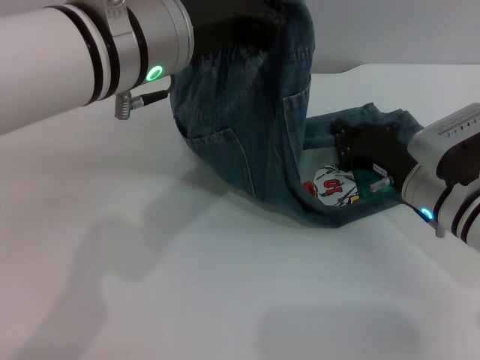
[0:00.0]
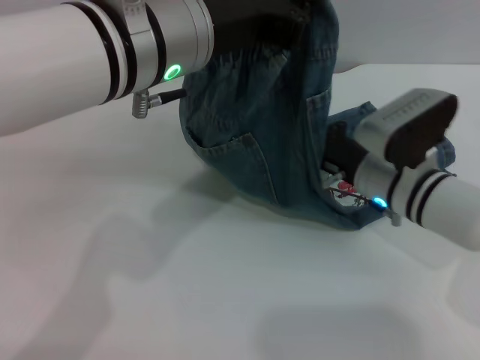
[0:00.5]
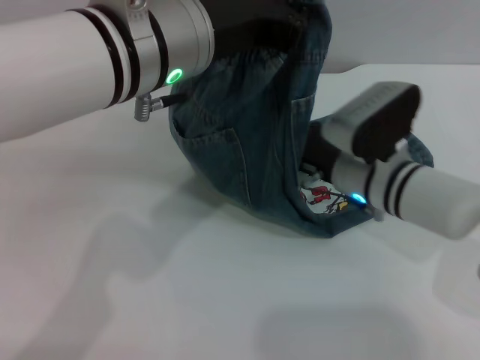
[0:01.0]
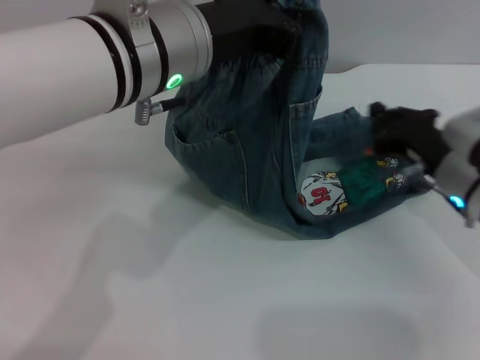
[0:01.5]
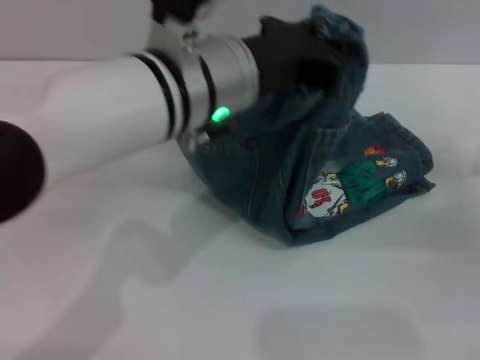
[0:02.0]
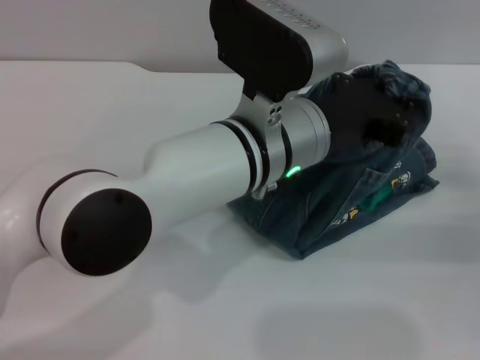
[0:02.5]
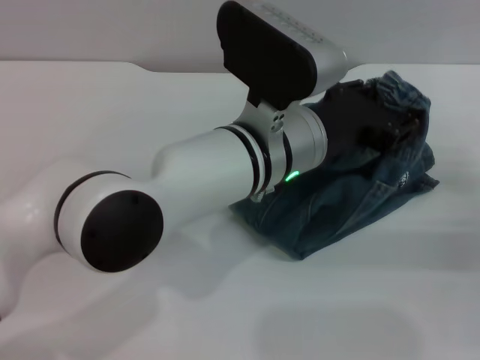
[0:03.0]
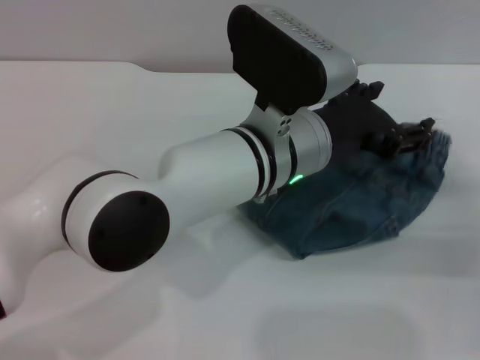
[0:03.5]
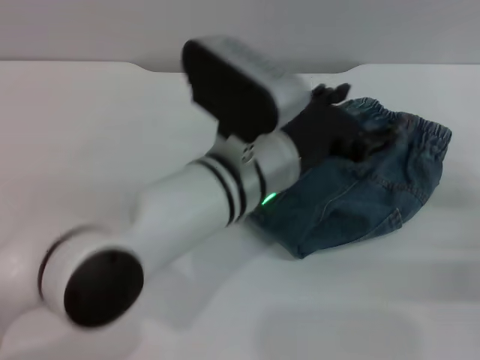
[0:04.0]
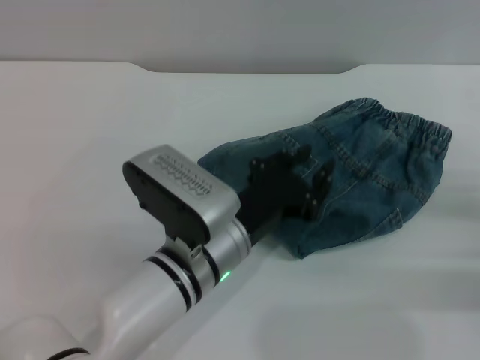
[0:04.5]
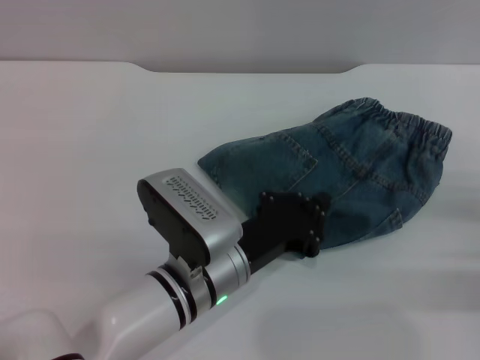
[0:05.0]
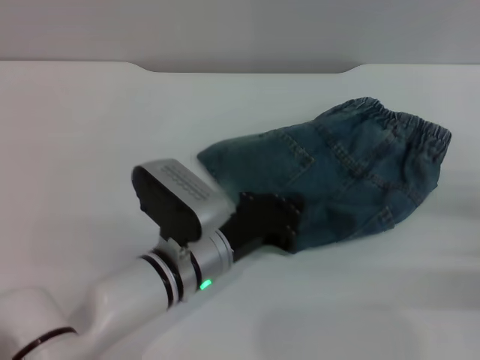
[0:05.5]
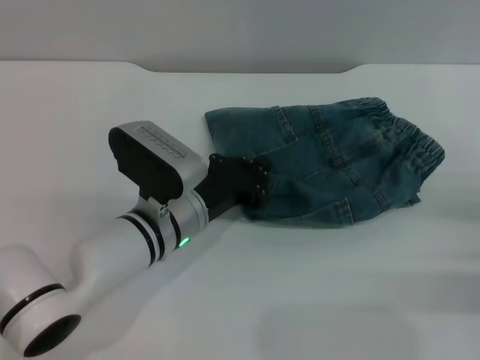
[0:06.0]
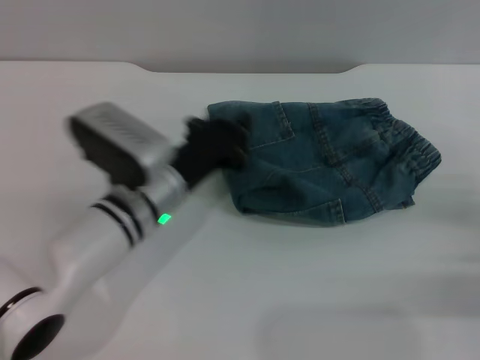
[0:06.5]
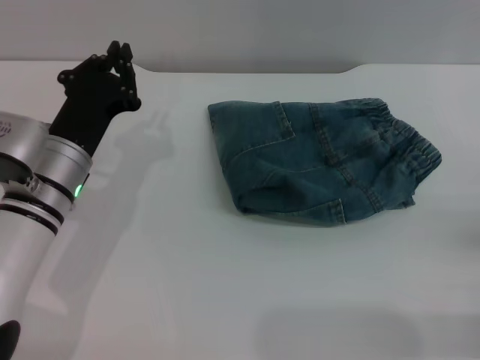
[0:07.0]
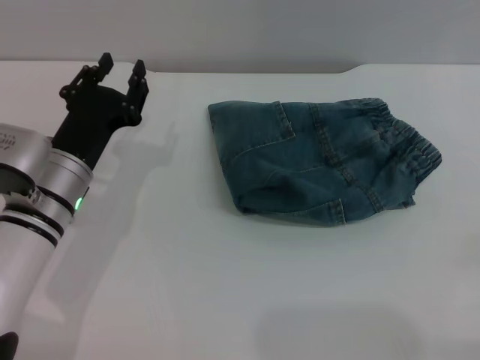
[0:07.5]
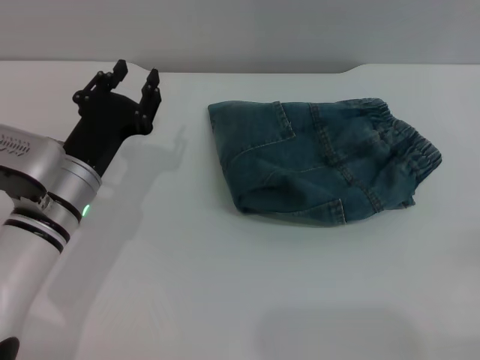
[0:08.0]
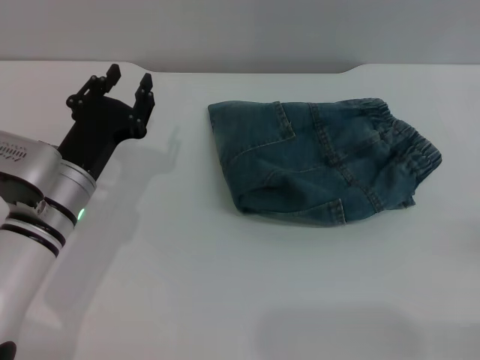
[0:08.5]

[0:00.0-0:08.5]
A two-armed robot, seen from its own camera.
Step, 0:00.0 to 0:03.5: Fold the pants from left to right with the left gripper.
Step, 0:04.0 to 0:06.5: Place the folded trousers onto the center area with the left grippers.
0:00.0 to 0:02.0: The left gripper changes place by about 5 cm, while the right gripper travels to the right by about 15 cm.
0:02.0 to 0:04.0: The left gripper shifts about 10 cm downward, and opens, while the right gripper shifts about 5 cm backward.
0:04.0 to 0:06.5: The left gripper shifts approximately 15 cm downward and to the left, and closes up.
0:06.5 to 0:08.5: The left gripper goes roughly 10 cm to the left, and opens its fingers, while the right gripper changes place by some 5 cm.
